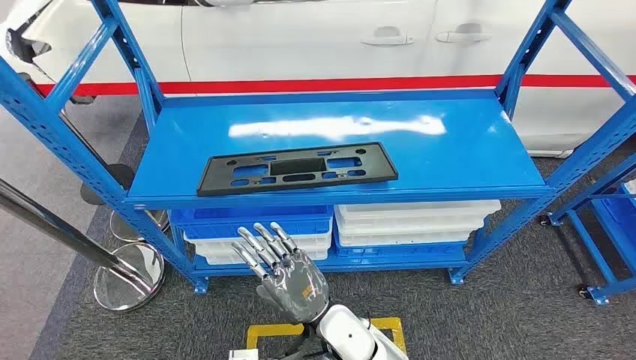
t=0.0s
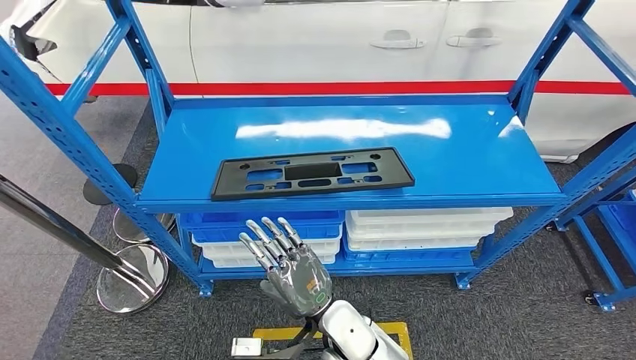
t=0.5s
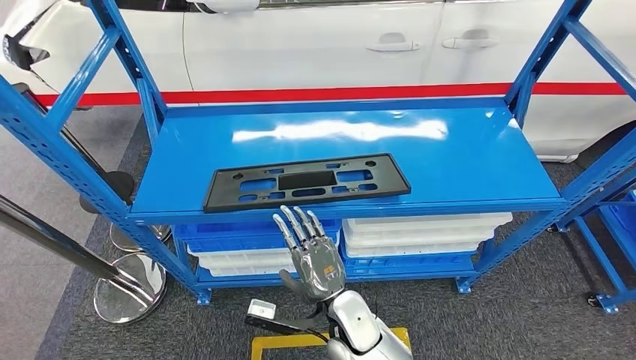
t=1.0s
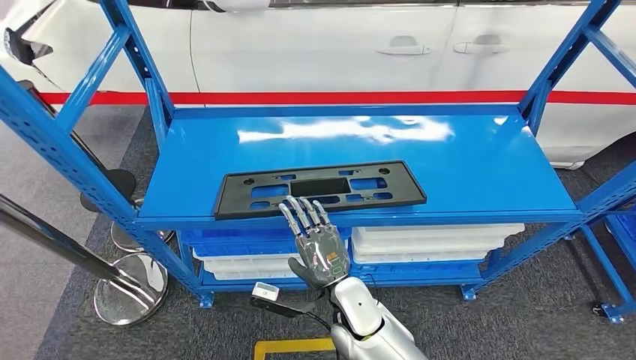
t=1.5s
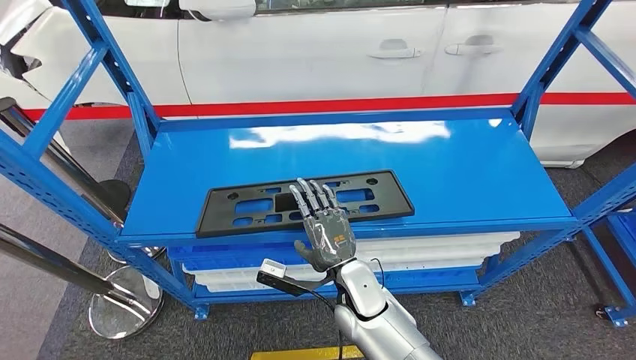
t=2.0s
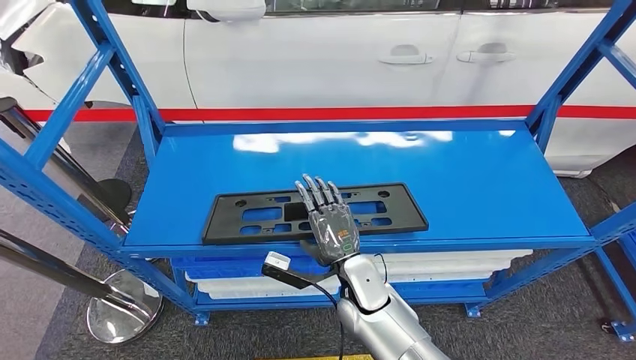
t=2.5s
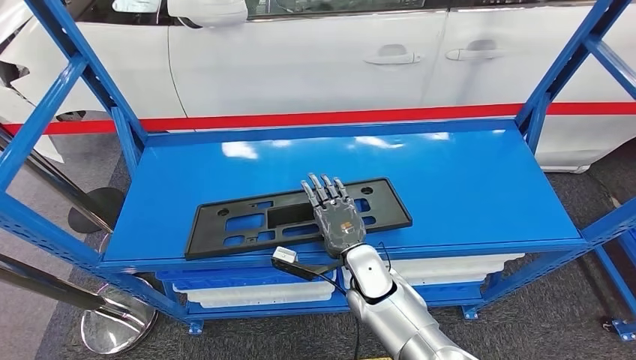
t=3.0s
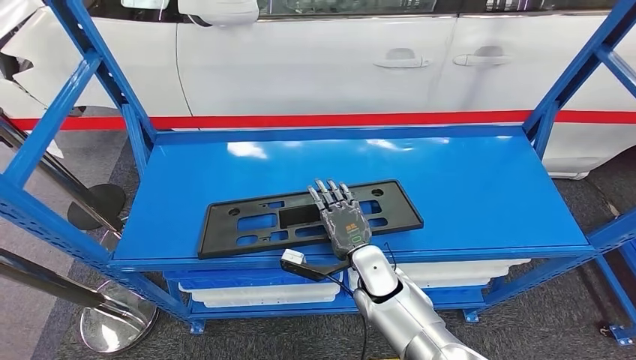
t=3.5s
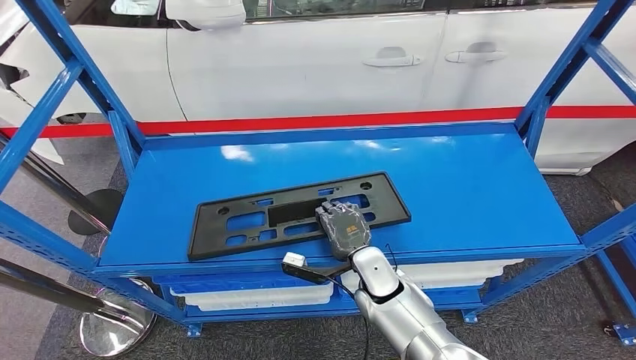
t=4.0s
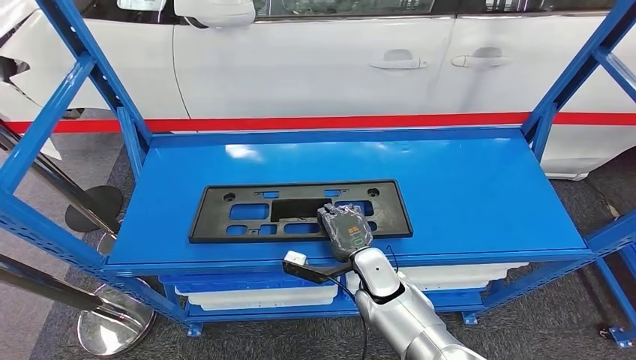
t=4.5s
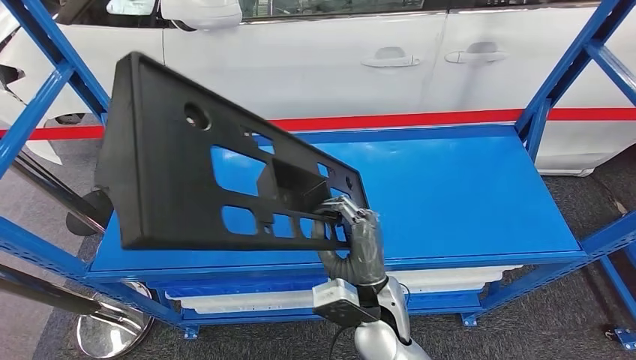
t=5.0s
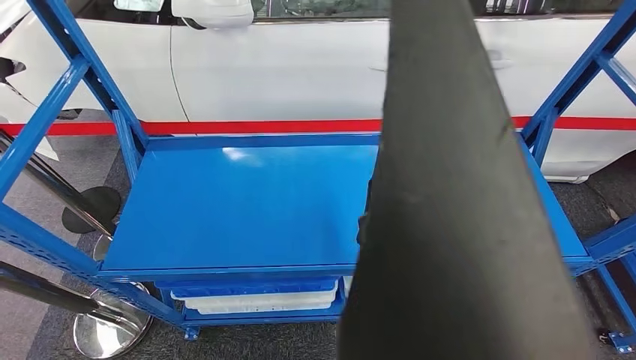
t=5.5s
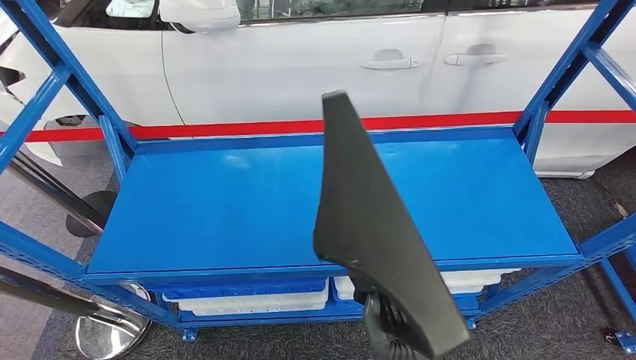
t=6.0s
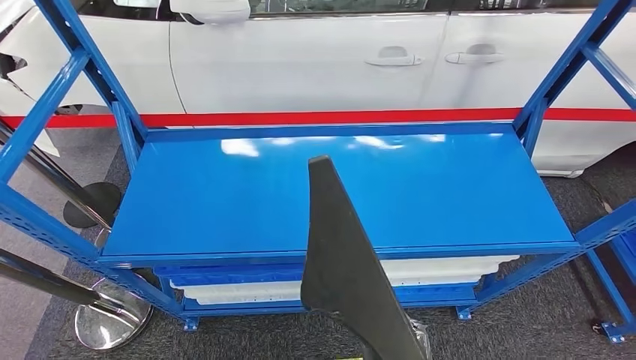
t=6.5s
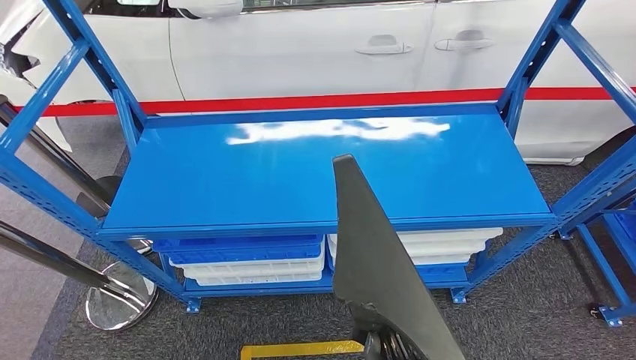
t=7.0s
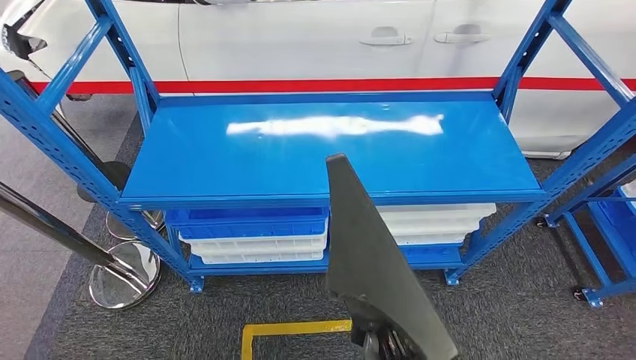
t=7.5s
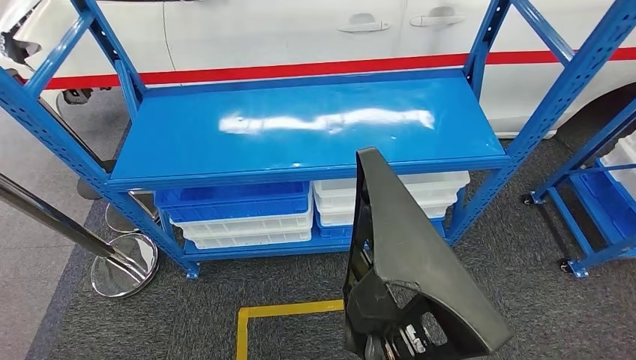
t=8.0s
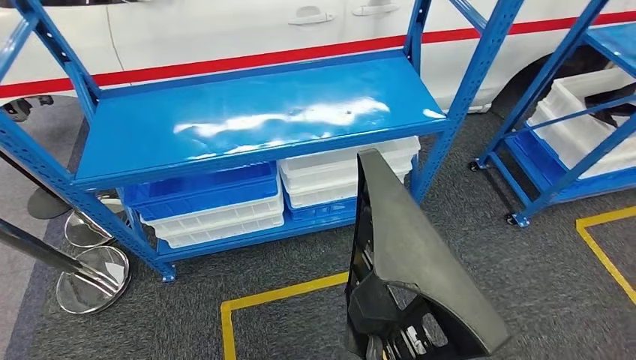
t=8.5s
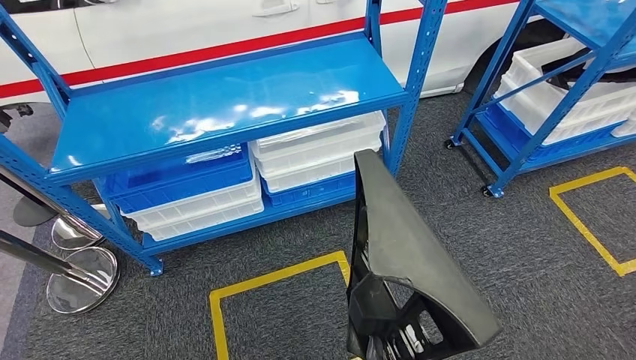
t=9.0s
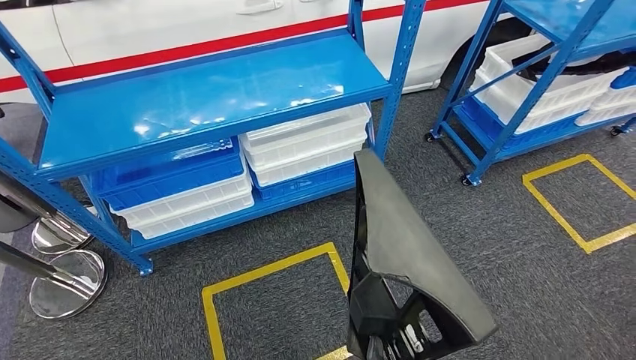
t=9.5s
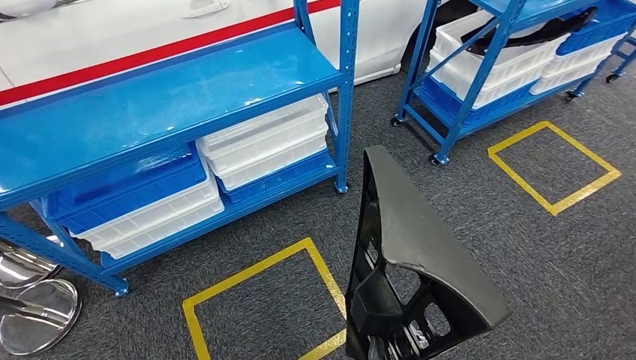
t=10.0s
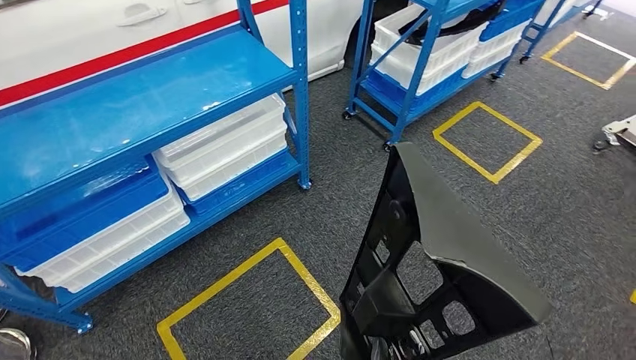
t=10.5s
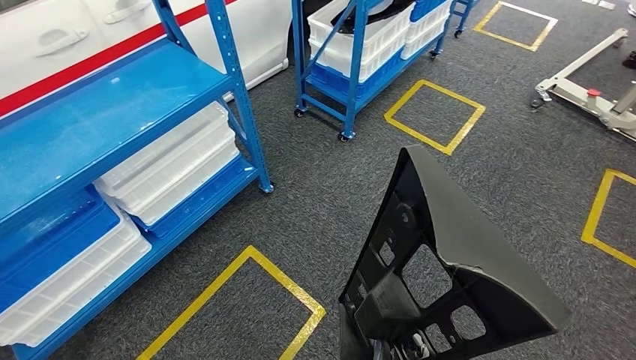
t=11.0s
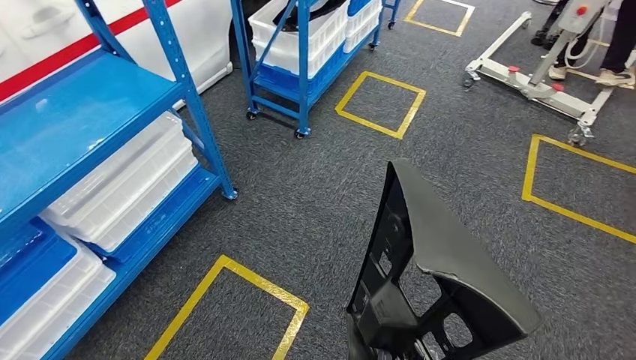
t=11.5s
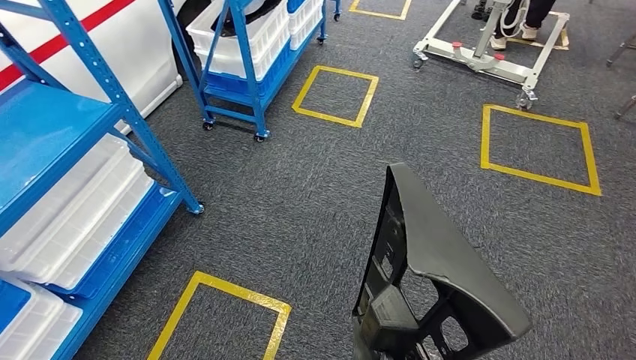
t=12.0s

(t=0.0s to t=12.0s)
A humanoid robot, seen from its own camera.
Step, t=0.0s - t=6.5s: Pick up the large material from the shelf.

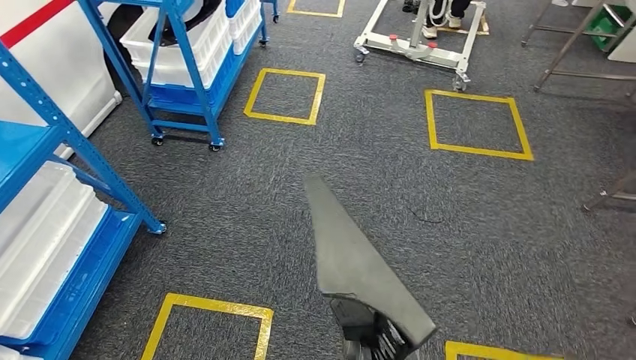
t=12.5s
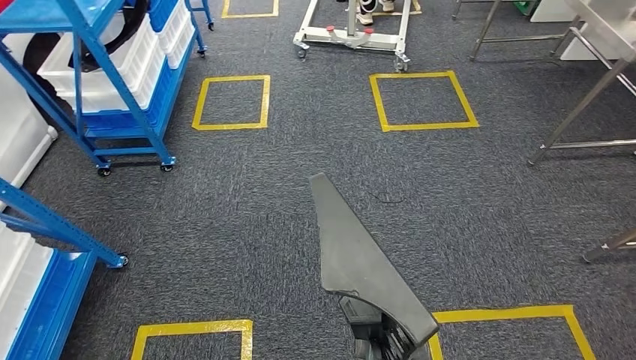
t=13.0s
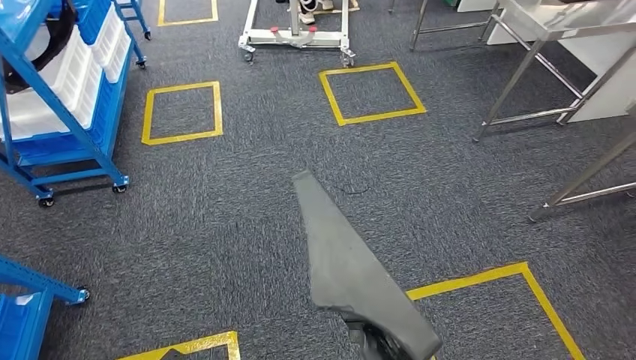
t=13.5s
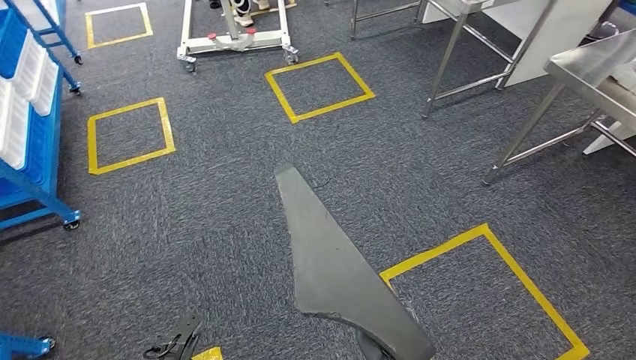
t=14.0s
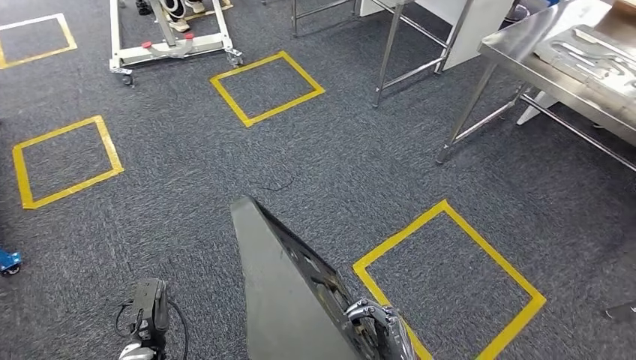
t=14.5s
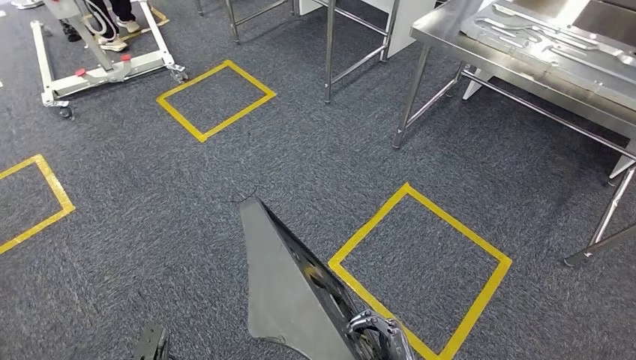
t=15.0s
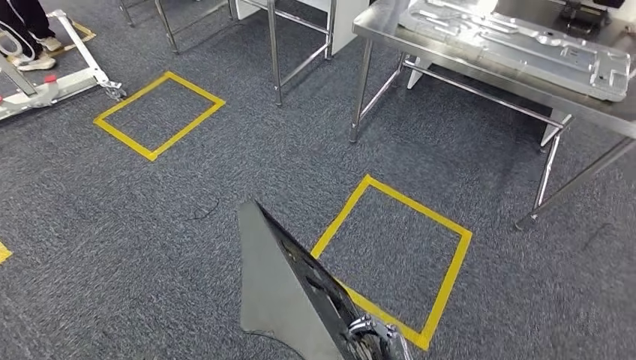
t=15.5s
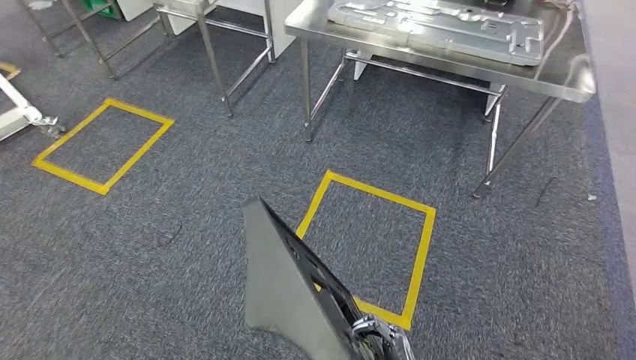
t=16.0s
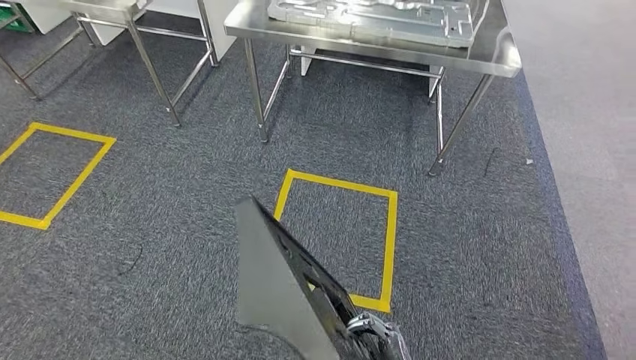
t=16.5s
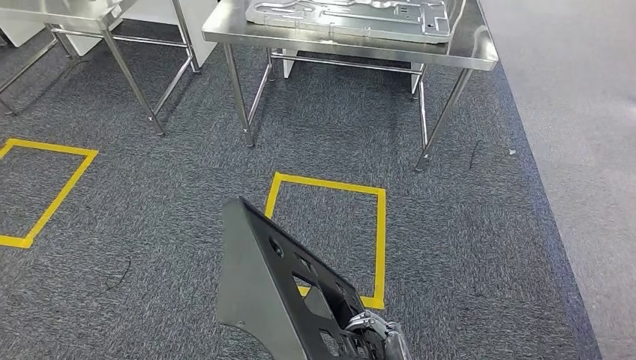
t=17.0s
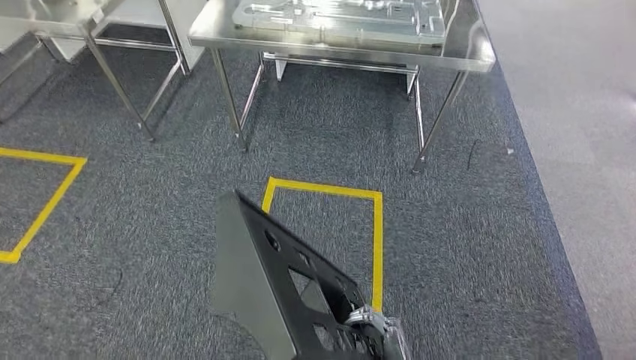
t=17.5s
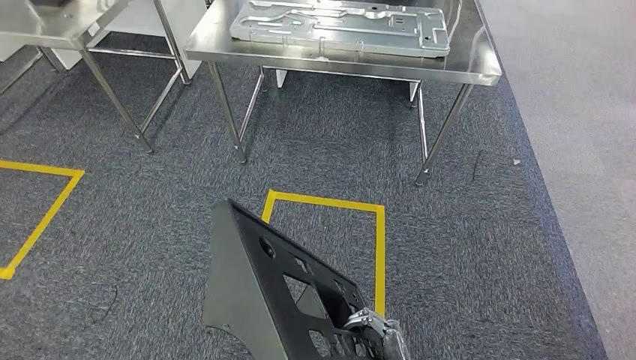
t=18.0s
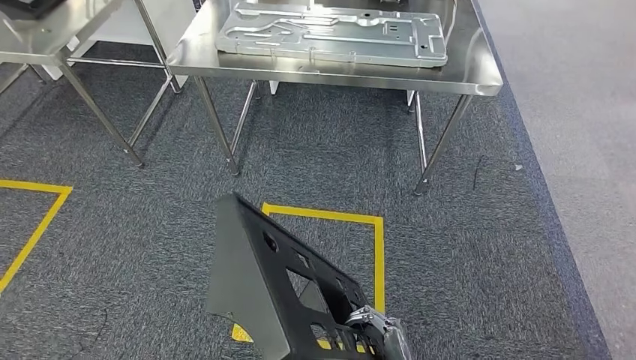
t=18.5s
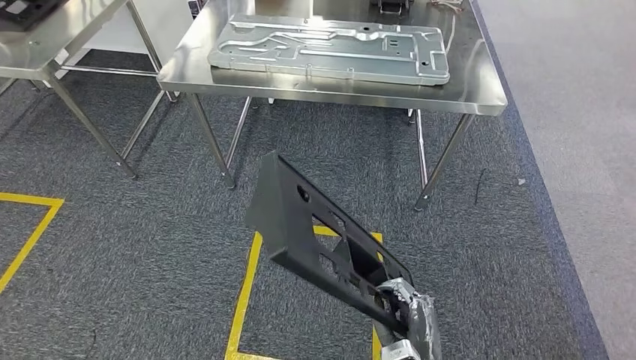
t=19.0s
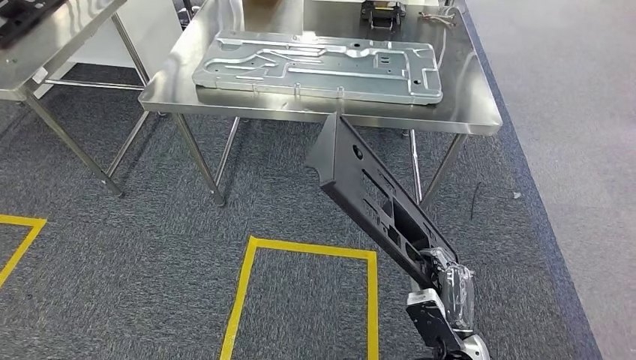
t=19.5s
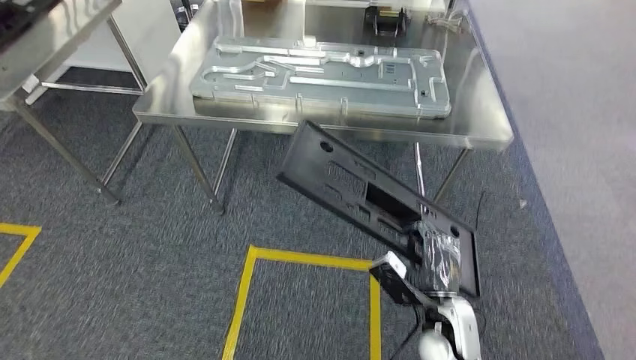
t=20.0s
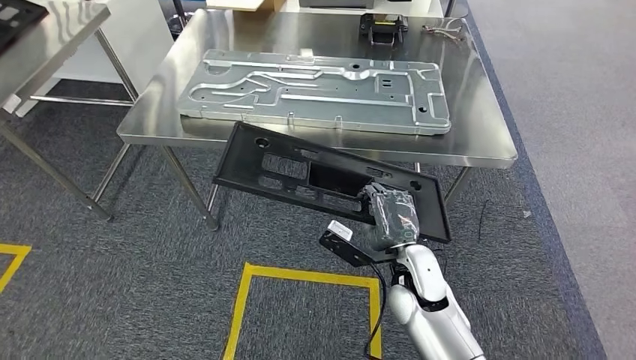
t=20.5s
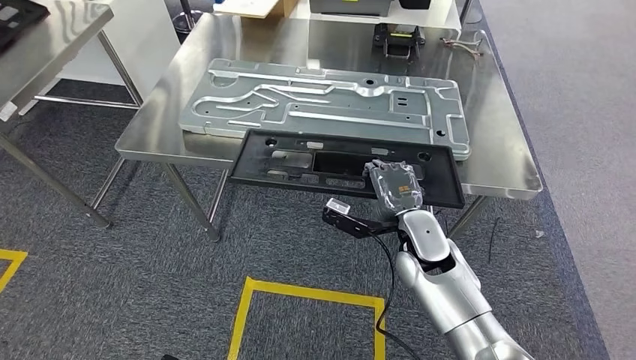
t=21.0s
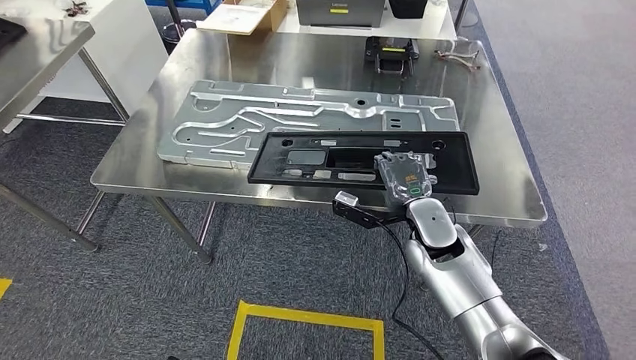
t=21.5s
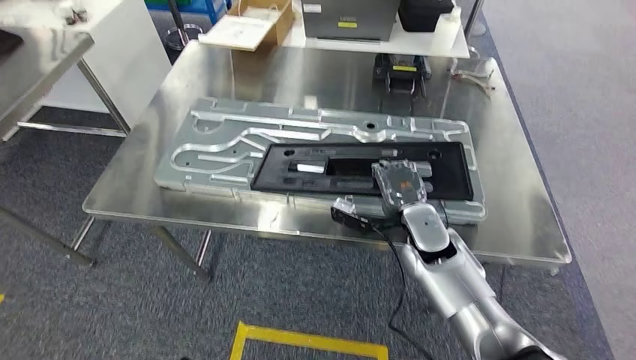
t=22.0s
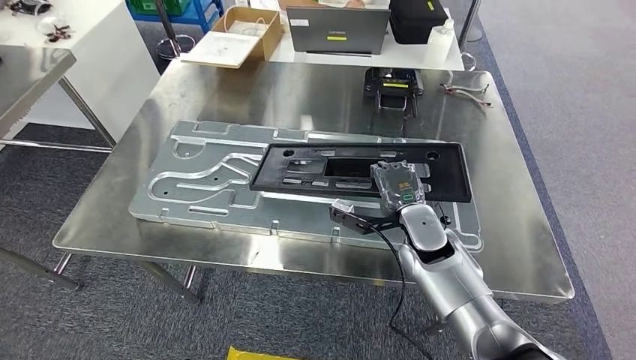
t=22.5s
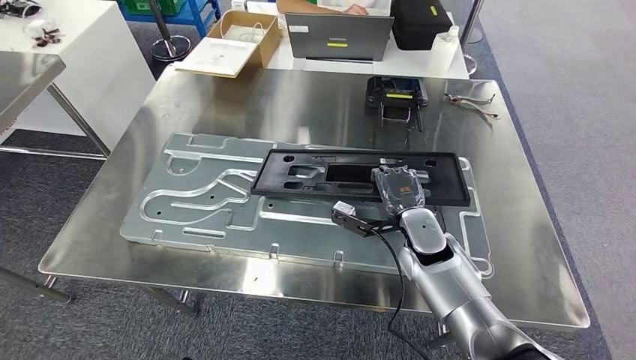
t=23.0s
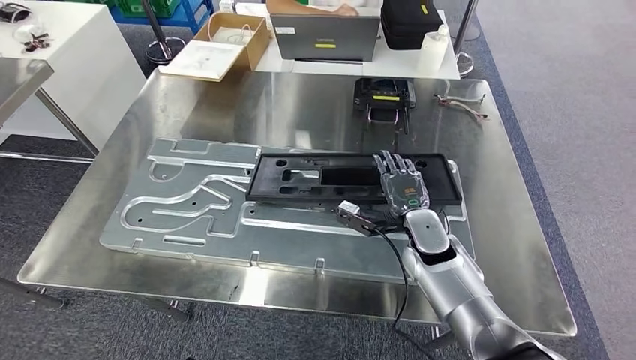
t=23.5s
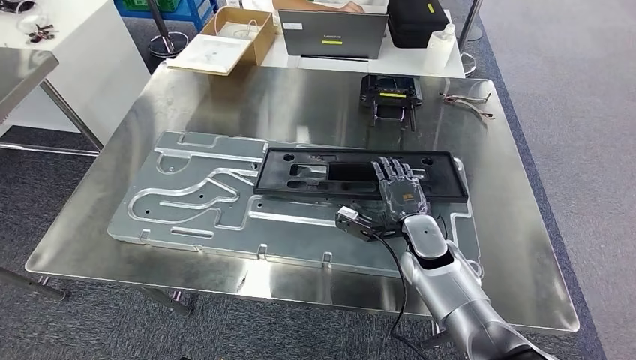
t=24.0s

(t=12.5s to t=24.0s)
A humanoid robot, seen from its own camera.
Step, t=12.5s - t=19.5s: Move the large material to the workbench.
